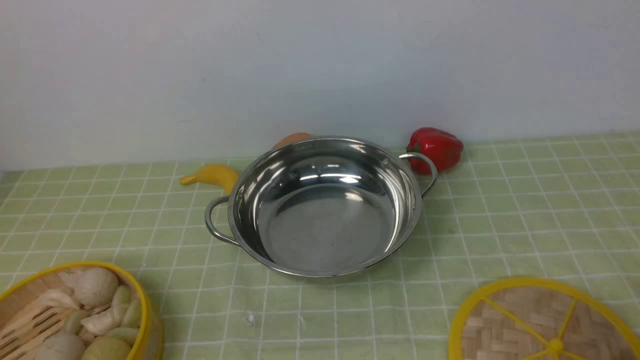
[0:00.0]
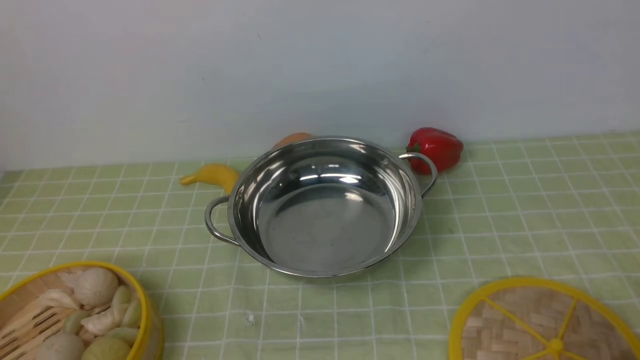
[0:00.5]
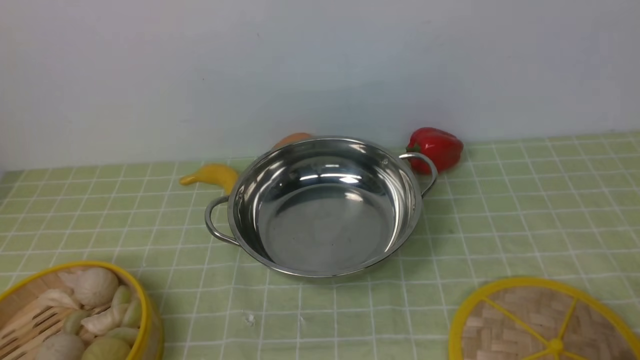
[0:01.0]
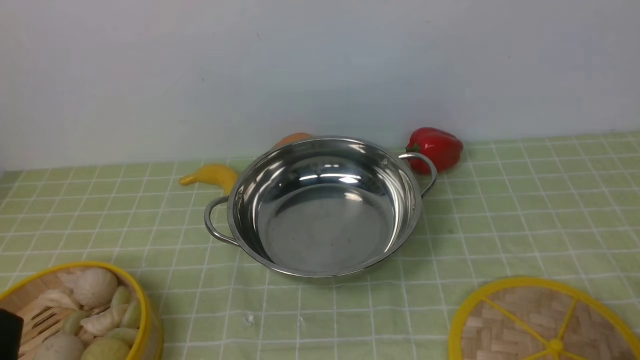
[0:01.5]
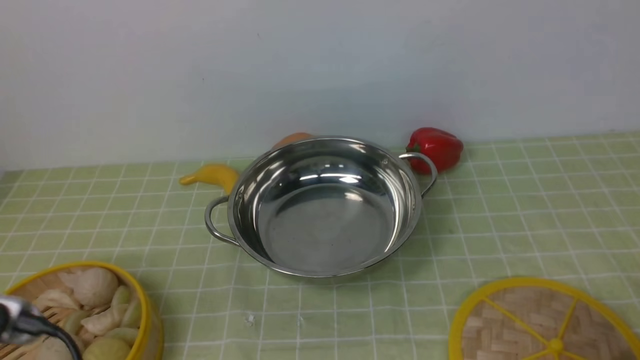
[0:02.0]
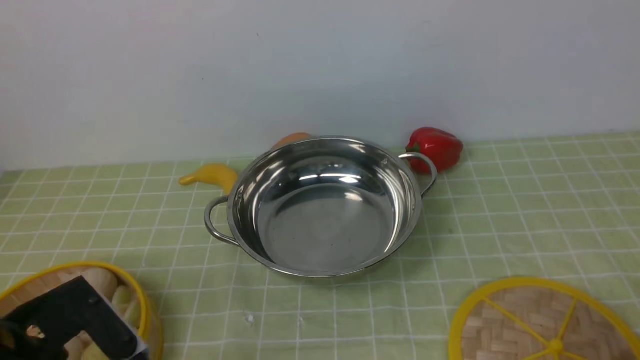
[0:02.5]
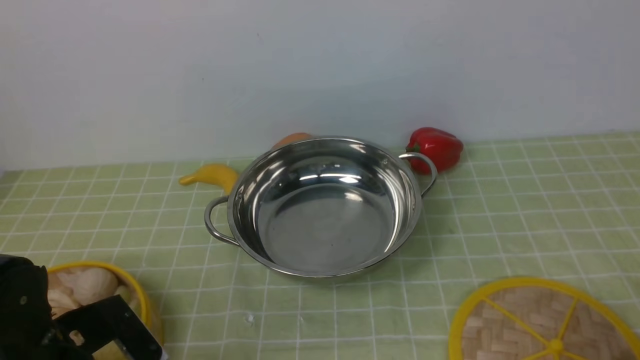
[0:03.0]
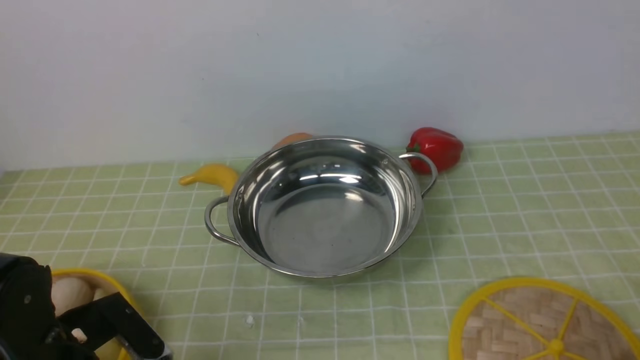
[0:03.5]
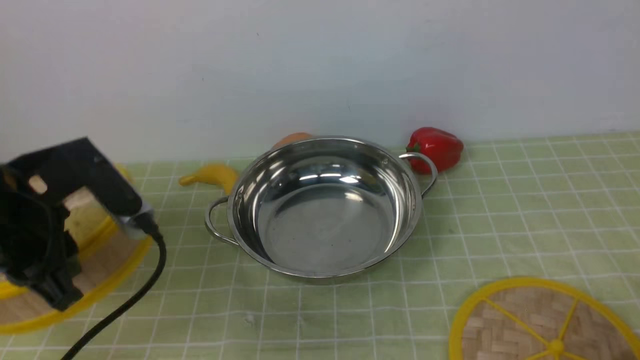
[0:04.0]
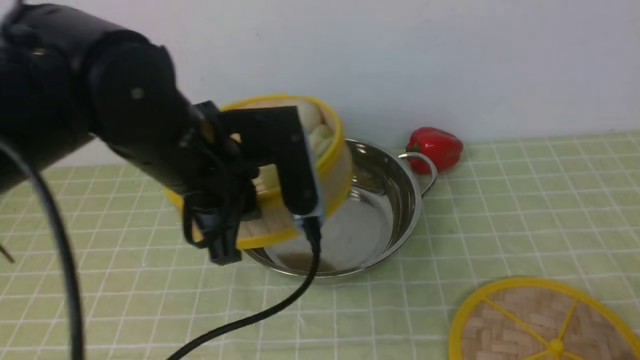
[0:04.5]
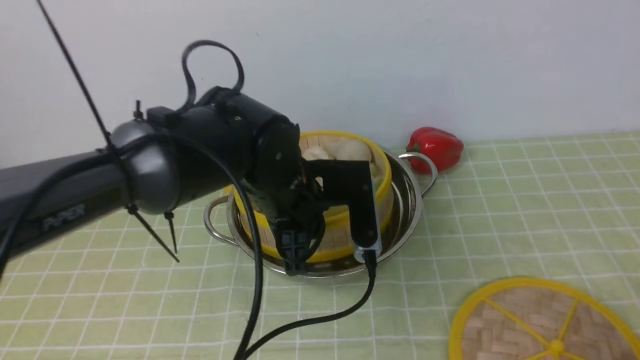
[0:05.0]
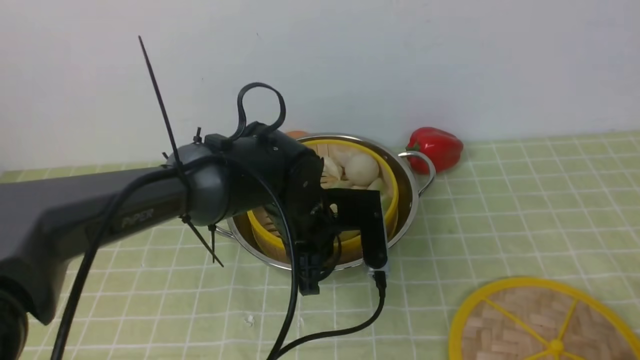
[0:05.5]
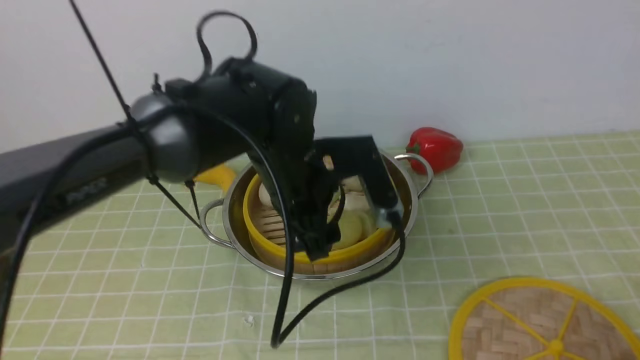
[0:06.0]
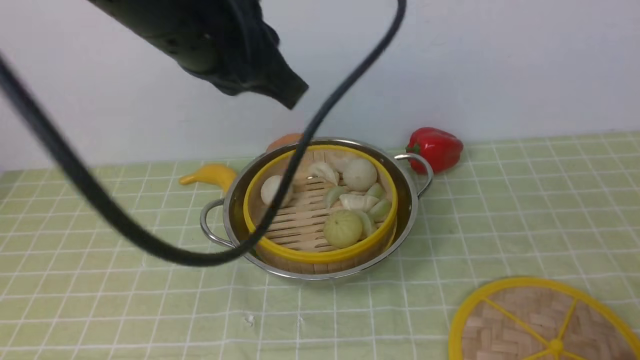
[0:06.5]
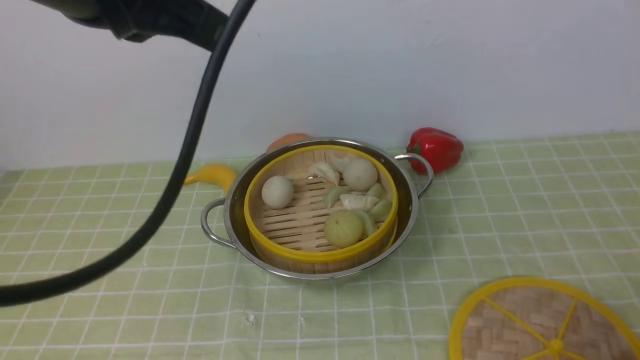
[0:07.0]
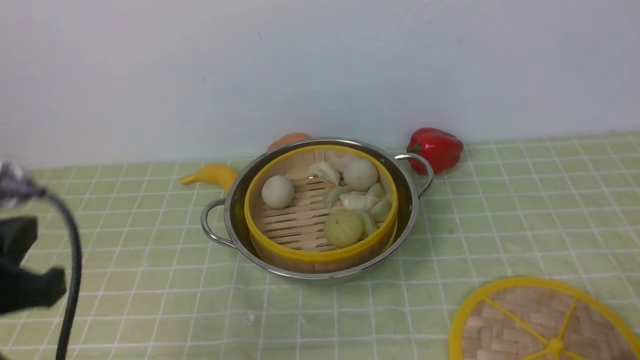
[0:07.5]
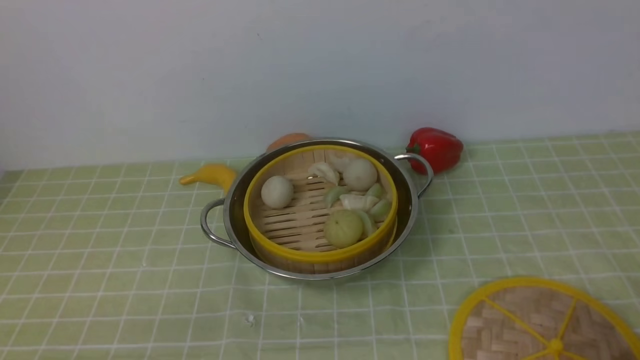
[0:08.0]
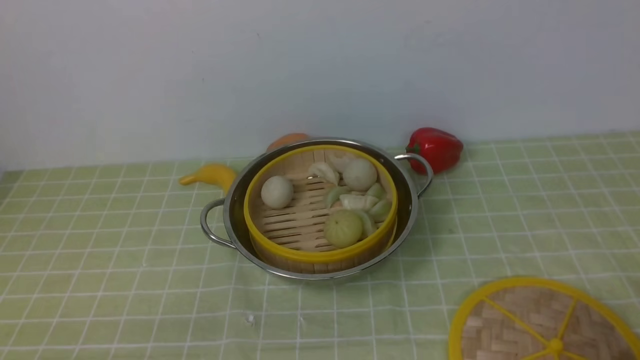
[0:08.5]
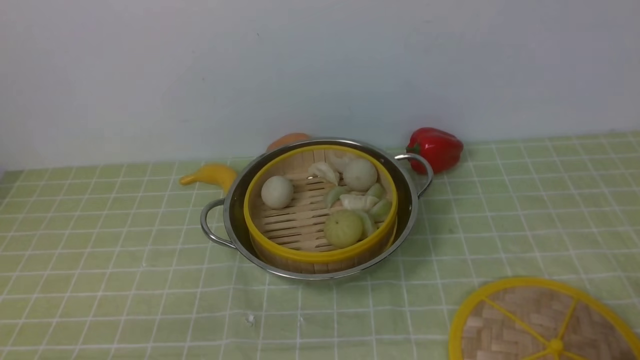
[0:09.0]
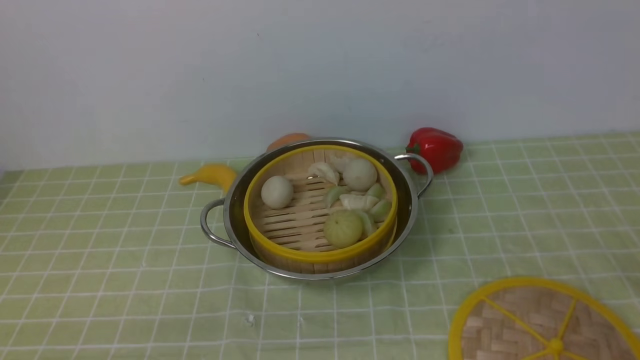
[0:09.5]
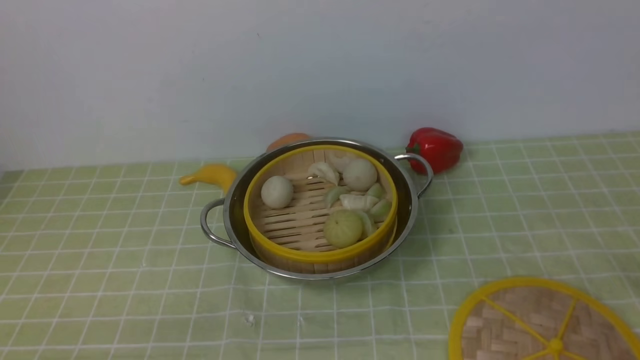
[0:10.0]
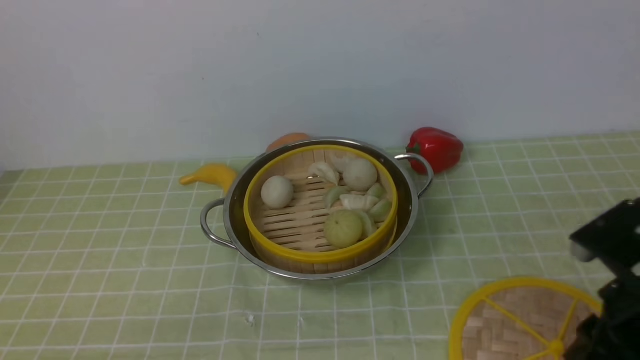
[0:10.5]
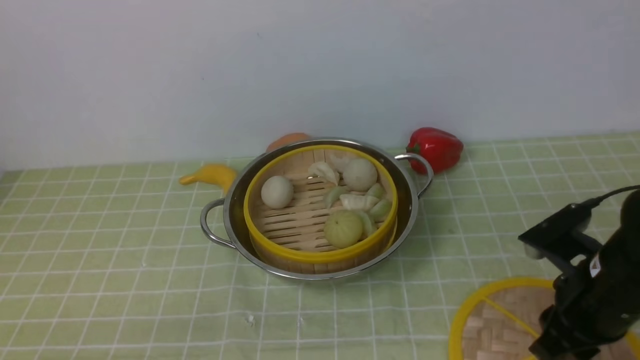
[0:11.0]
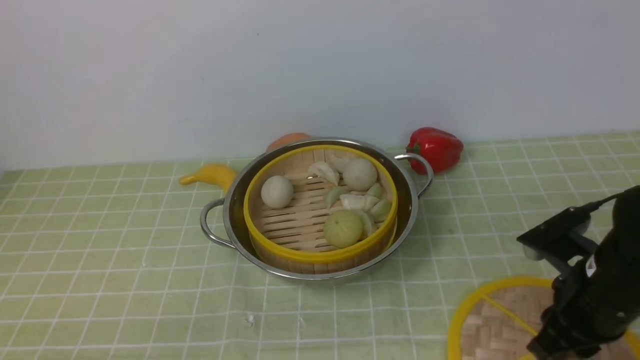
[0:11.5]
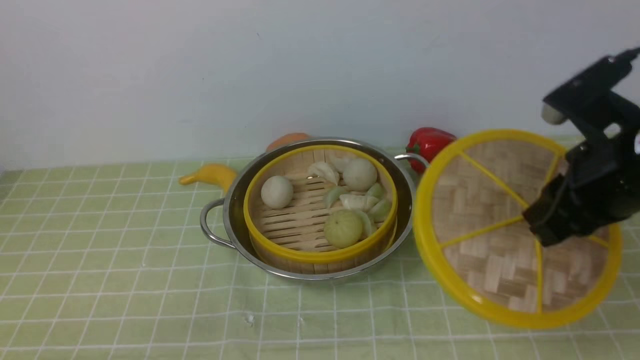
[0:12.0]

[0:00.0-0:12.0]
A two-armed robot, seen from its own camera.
Task of the whole recording: place the steamer in the pot on the green tablecloth, and put the lid on the steamer.
Step, 0:00.0 to 0:04.0: use the left arm to lift the steamer closest to it.
Step, 0:04.5 to 0:06.0: use the left arm to put the steamer into the iron steamer pot in the middle.
0:00.0 to 0:02.0: The left gripper is displaced upward by approximately 10 cm.
0:02.0 to 0:04.0: The left gripper travels forward by approximately 15 cm, and closes up.
0:04.0 to 0:06.0: The left gripper is displaced to the right and forward by roughly 20 cm, and opens its fingers.
0:06.0 to 0:08.0: The left gripper heads backward and to the left, covering approximately 35 cm, goes upward and returns, some 20 cm each way, and closes its fingers.
0:10.0 to 0:12.0: The right gripper goes roughly 20 cm forward and to the left.

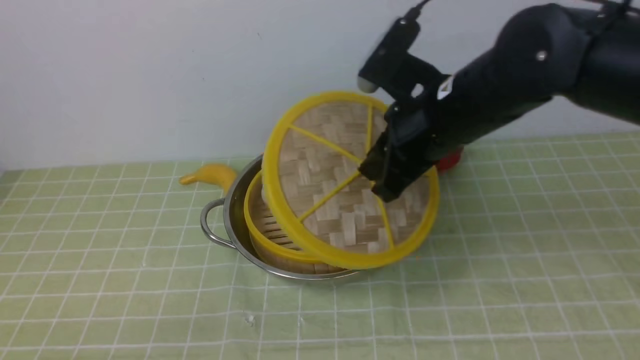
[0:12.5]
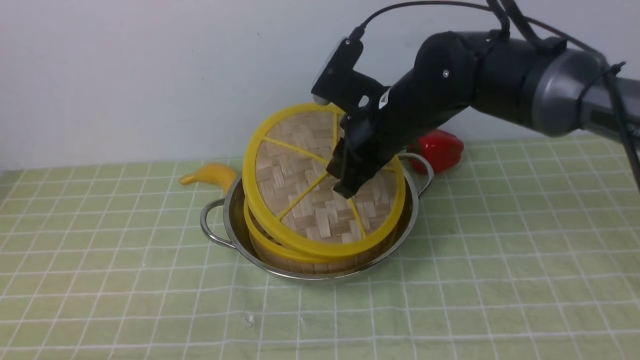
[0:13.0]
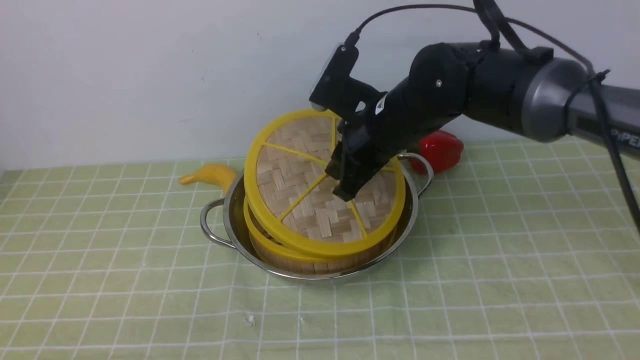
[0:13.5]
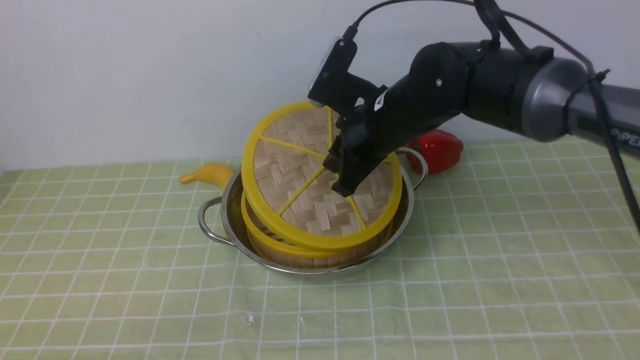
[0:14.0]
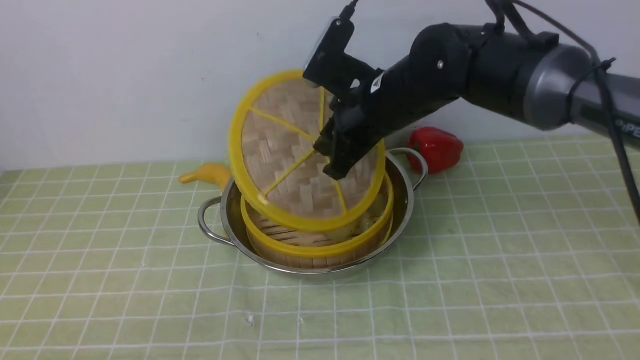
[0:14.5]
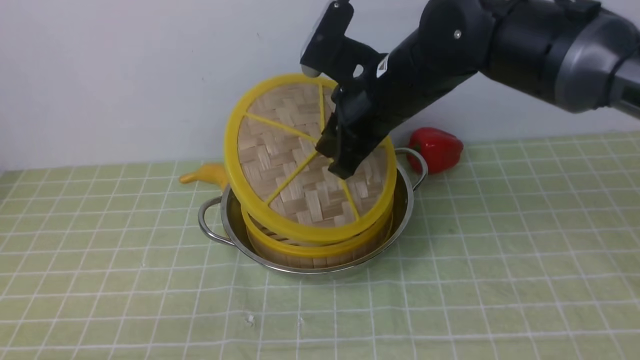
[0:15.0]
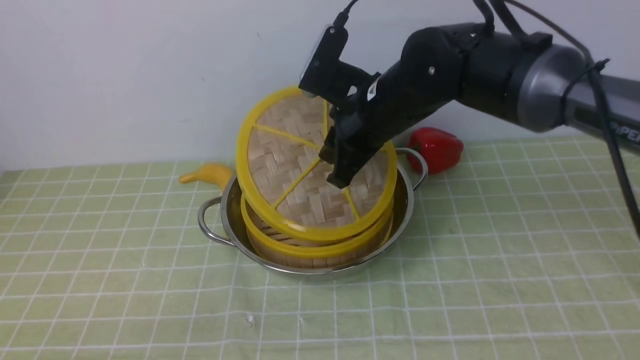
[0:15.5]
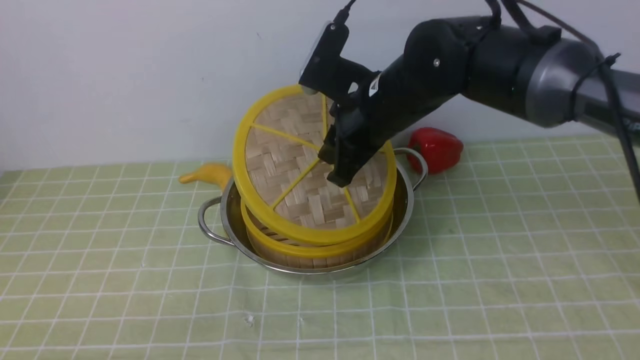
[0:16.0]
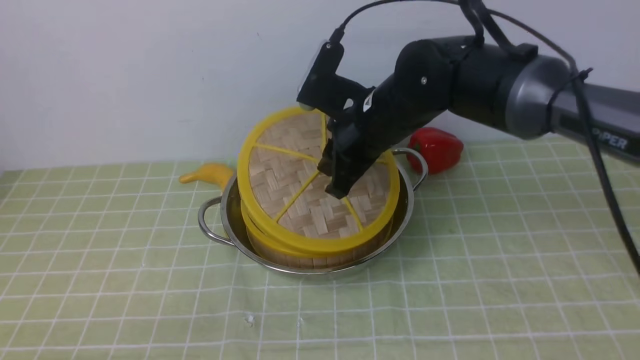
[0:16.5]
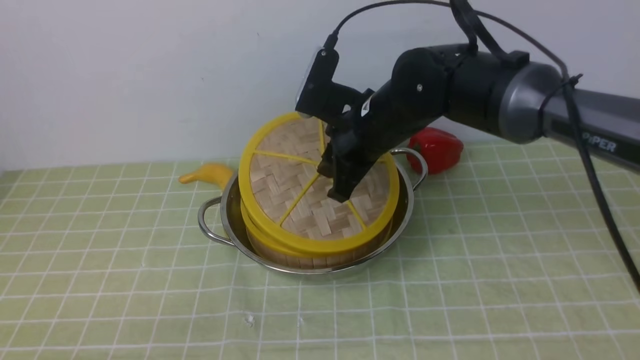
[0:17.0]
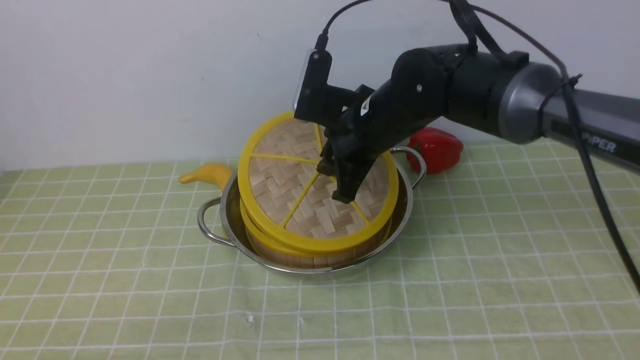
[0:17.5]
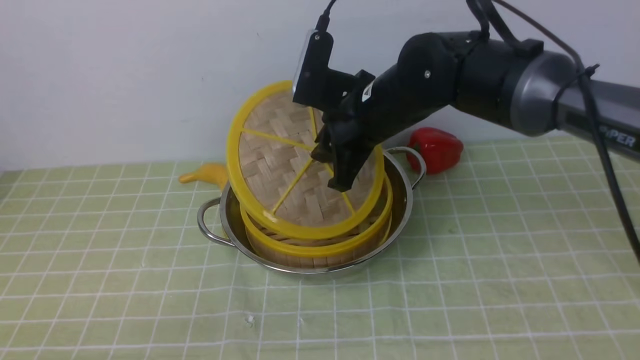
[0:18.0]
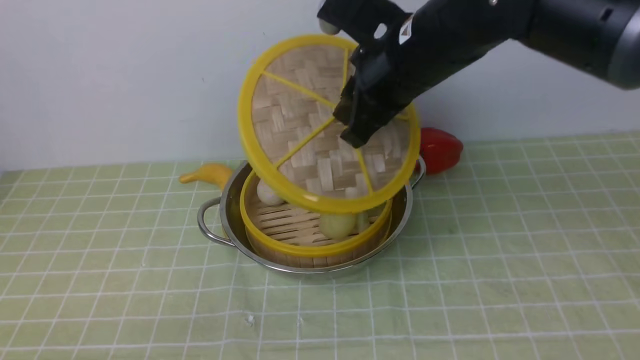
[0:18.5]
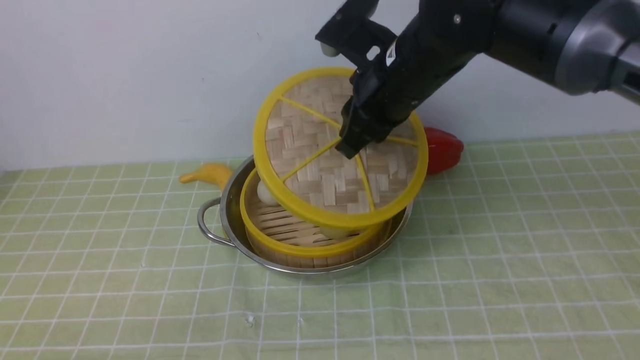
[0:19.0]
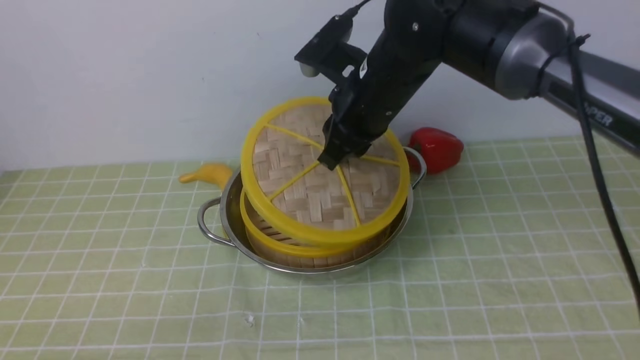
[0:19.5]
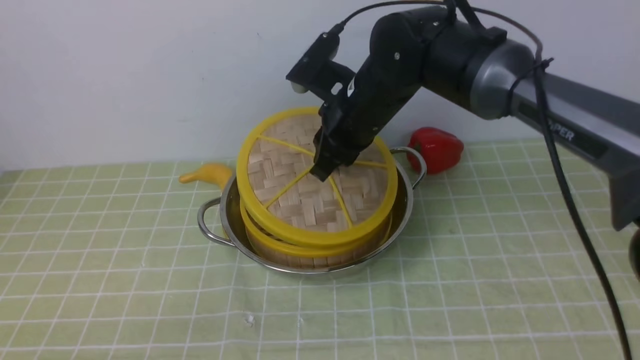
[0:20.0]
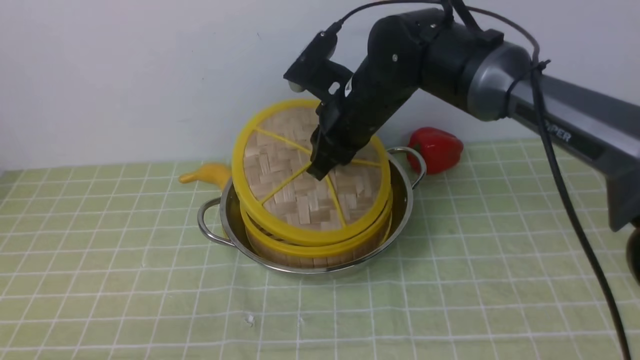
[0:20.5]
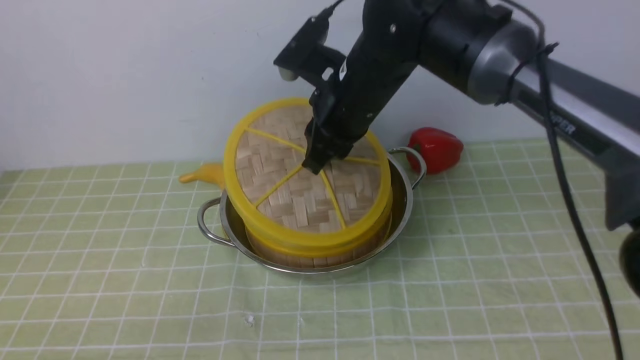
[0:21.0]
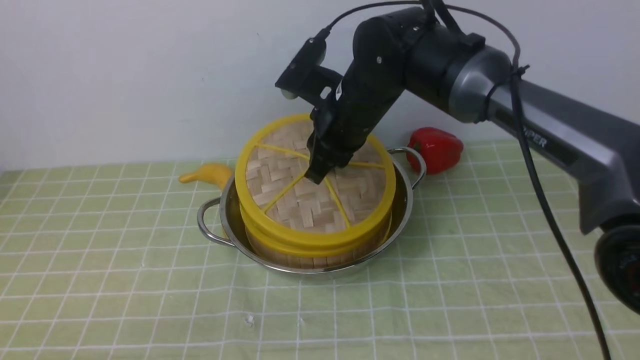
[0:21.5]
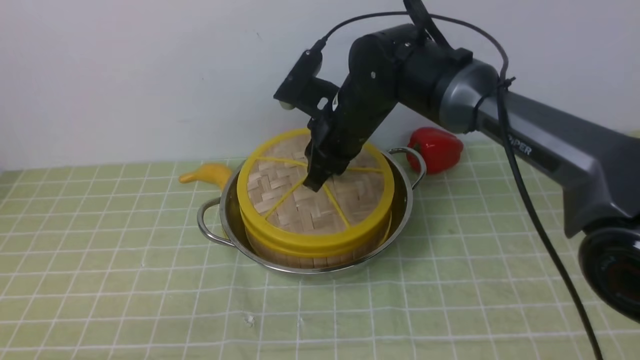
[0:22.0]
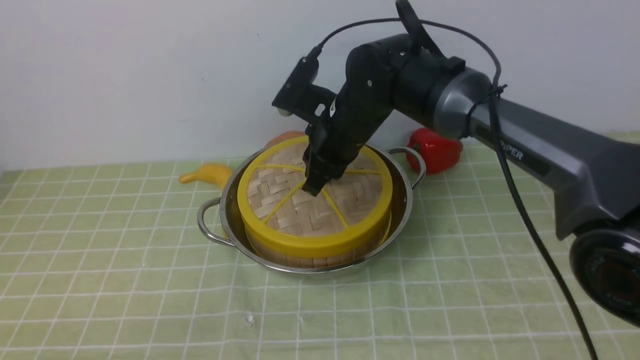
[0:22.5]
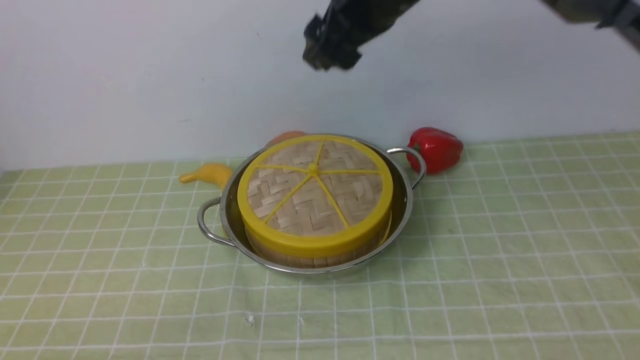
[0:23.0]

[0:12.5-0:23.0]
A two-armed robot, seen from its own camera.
Task of the whole recording: place the steamer in the pot on the green tablecloth, and put the lid on the steamer.
Step, 0:12.5 to 0:23.0: use the right arm to place the steamer lid on the steamer.
0:12.5 to 0:14.5: The right gripper shifts roughly 5 cm forward and to the left.
0:14.5 to 0:16.5: The grippers stay close to where they were, moving slightly.
0:16.5 to 0:19.0: The right gripper heads upward, covering roughly 5 cm.
0:19.0 to 0:21.0: The right gripper changes place by some 5 cm.
0:21.0 to 0:23.0: The right gripper moves upward, roughly 15 cm, and opens its fingers.
